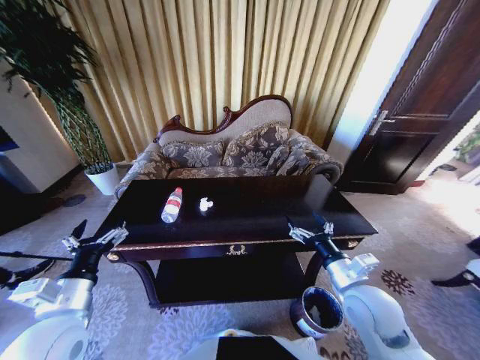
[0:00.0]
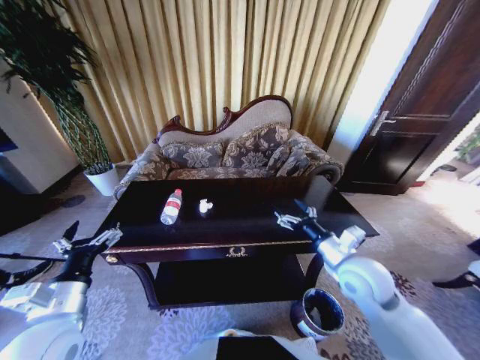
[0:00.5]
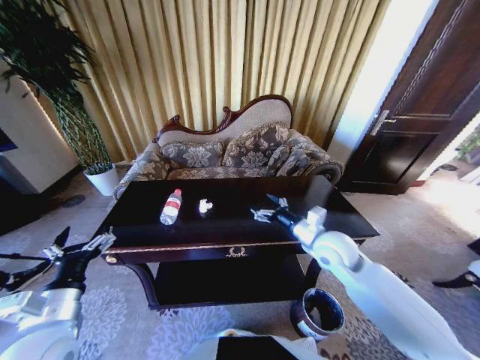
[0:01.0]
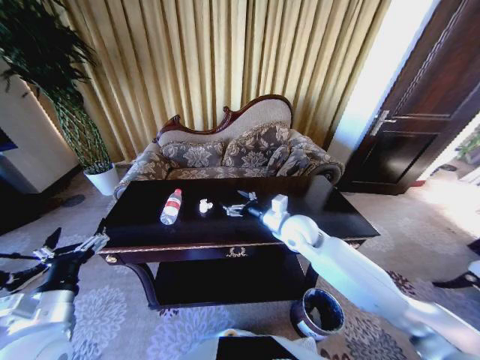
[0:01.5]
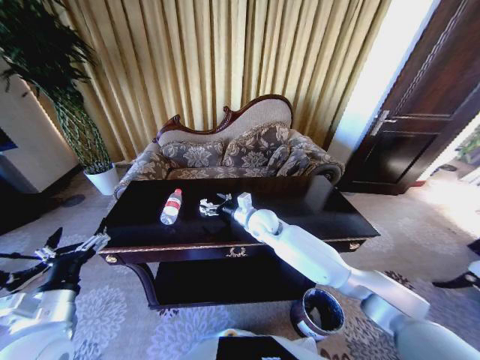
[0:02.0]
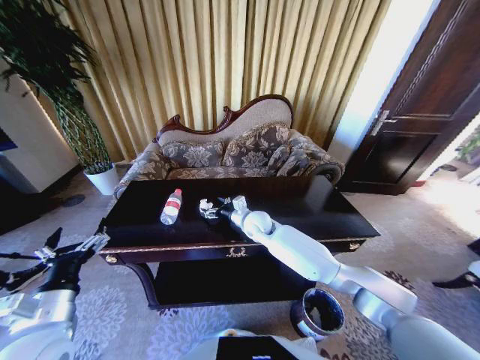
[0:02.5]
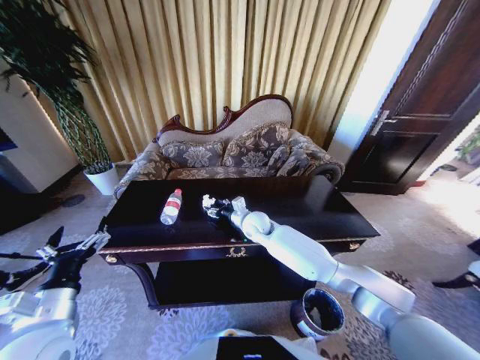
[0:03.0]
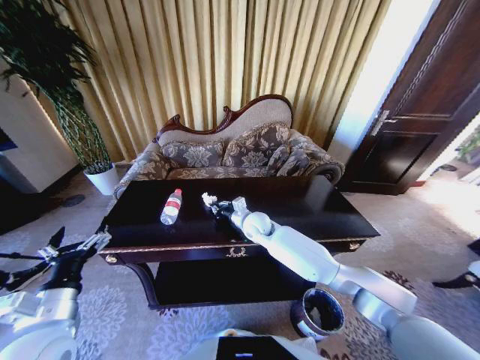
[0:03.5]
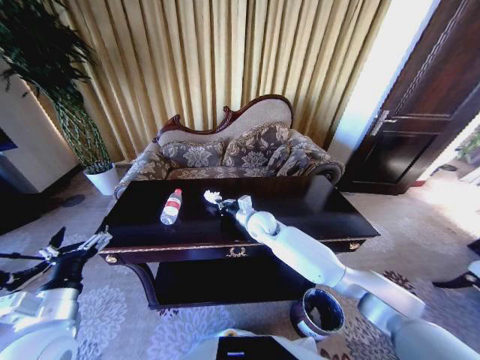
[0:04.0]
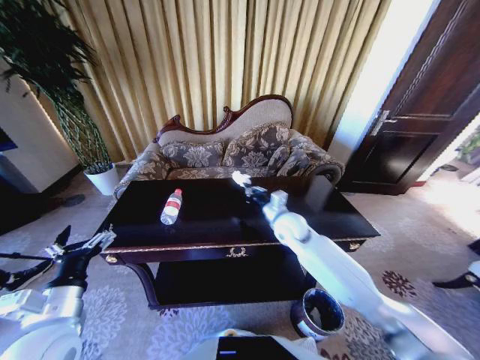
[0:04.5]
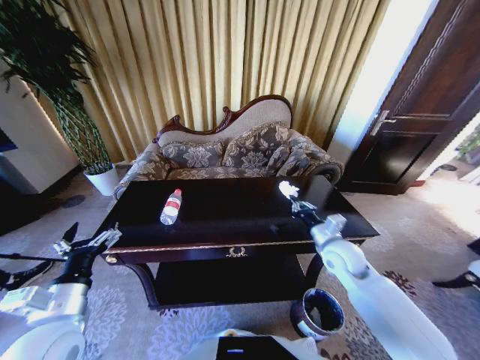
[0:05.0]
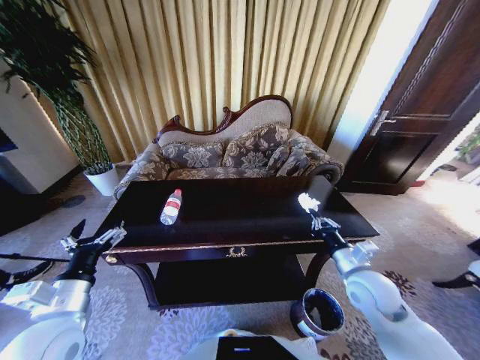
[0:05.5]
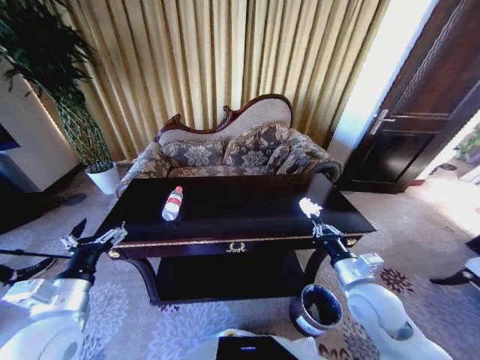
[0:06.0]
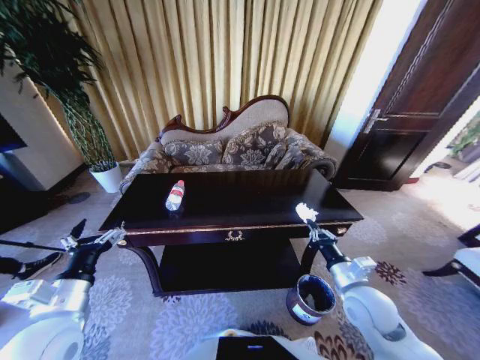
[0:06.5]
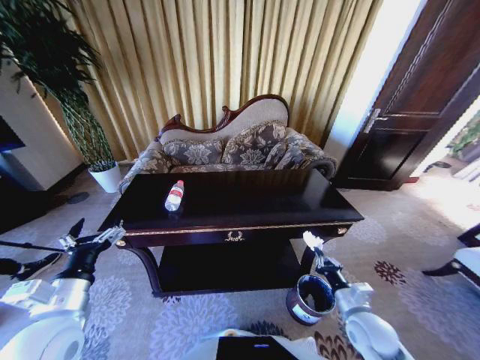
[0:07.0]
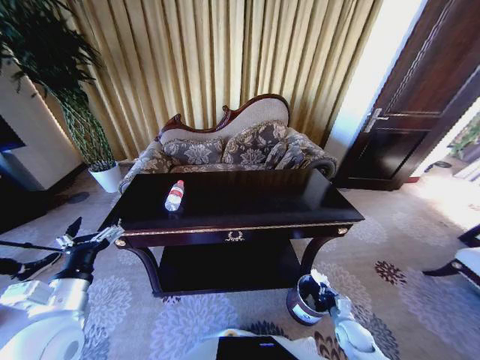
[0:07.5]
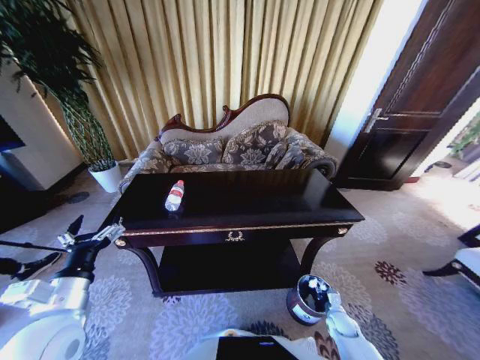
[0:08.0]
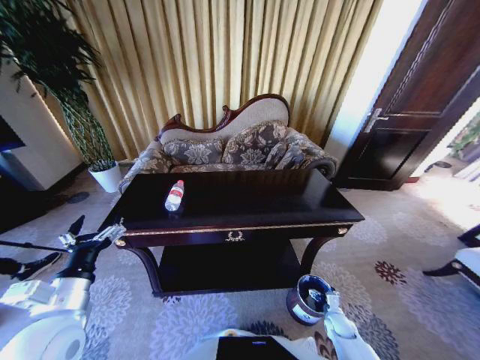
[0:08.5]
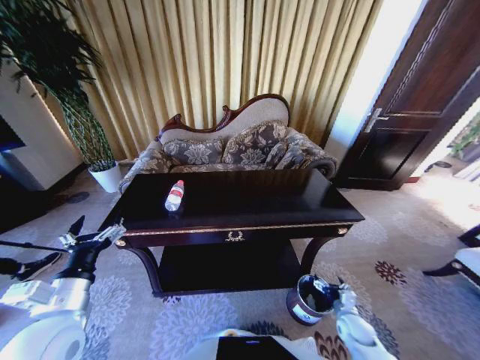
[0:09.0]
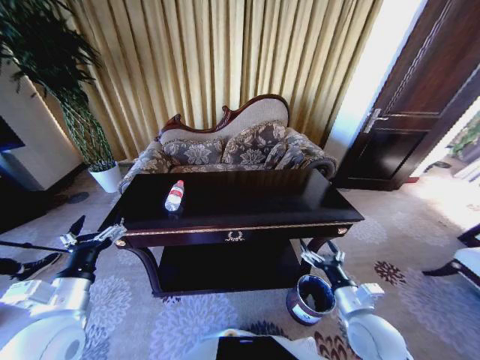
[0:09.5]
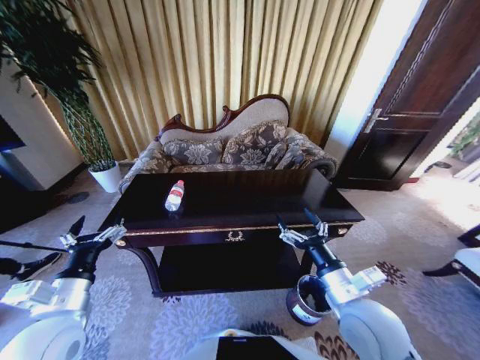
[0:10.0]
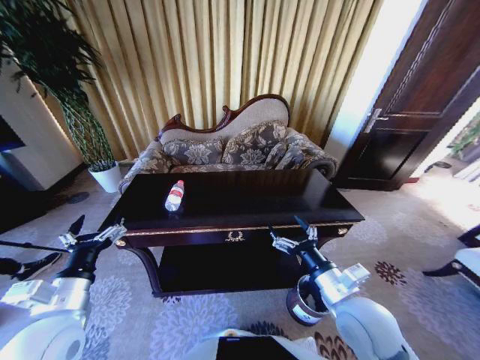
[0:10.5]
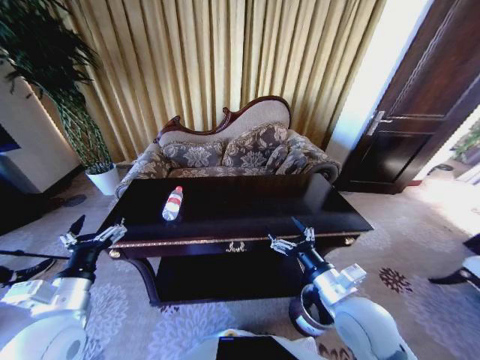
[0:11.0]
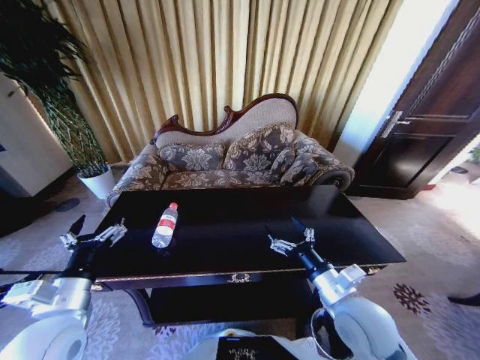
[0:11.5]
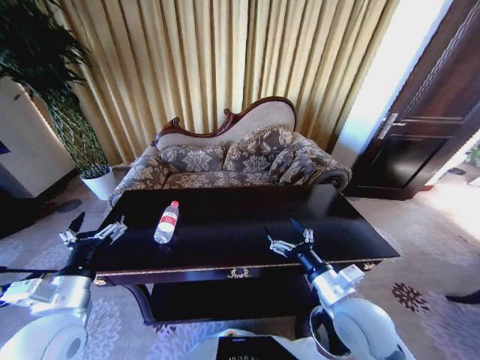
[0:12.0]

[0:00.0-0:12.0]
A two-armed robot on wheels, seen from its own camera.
Task of the whole recording: Move to the front of the table and place the trash on the table into the trash bin.
0.0 to 2.0 s: The right gripper moves forward and to the left, approximately 30 cm.
2.0 to 4.0 s: The right gripper closes.
4.0 to 6.0 s: The right gripper moves backward and to the right, approximately 30 cm.
6.0 to 8.0 s: The right gripper heads downward, covering about 30 cm.
8.0 to 10.0 s: The right gripper heads upward and to the left, covering approximately 40 cm, and opens up.

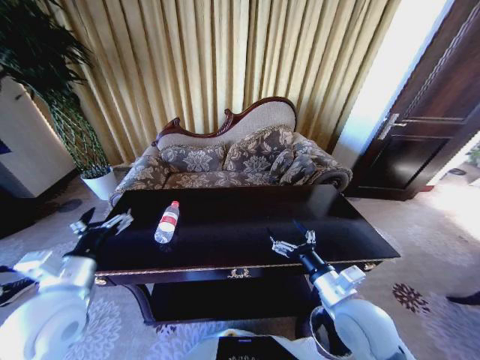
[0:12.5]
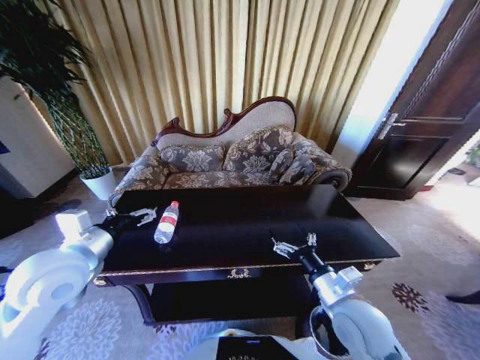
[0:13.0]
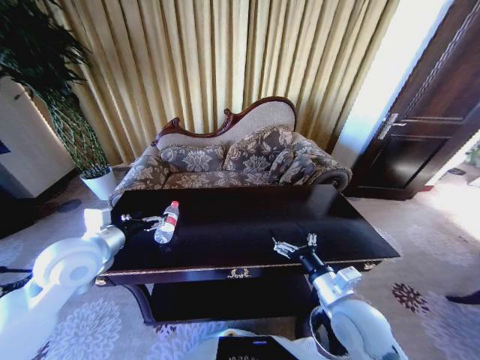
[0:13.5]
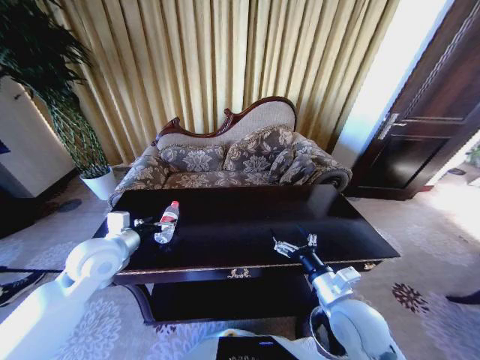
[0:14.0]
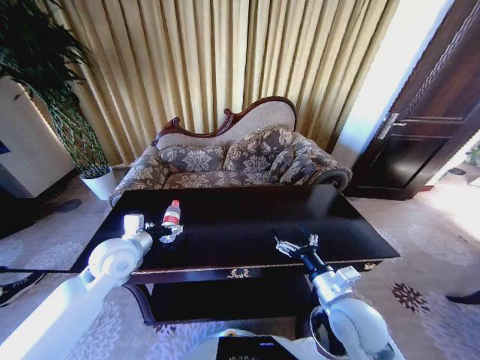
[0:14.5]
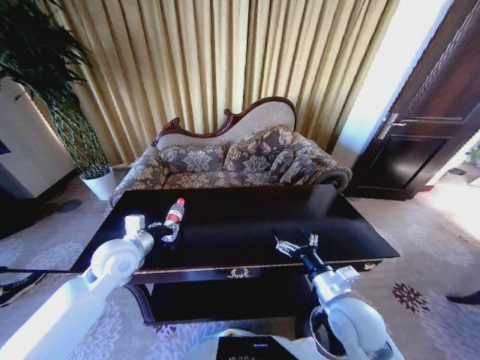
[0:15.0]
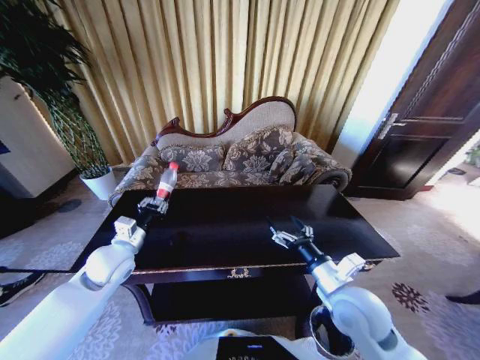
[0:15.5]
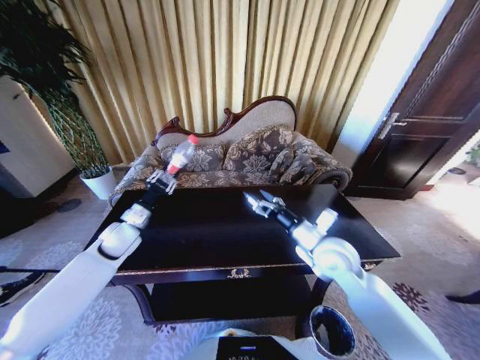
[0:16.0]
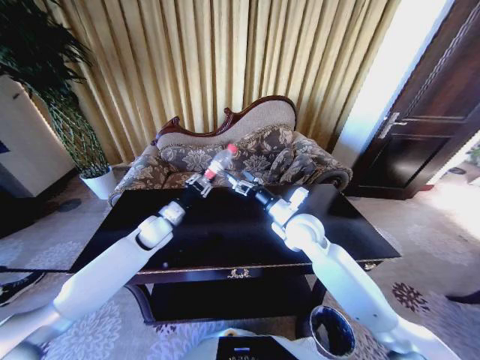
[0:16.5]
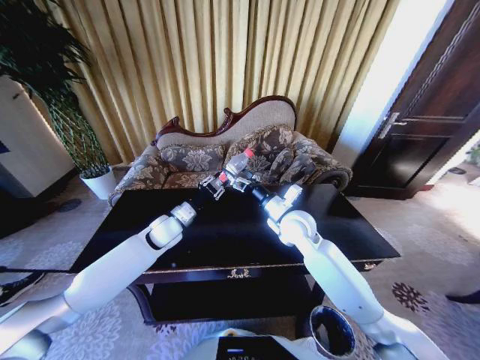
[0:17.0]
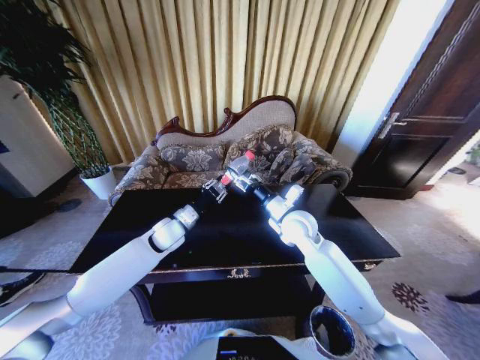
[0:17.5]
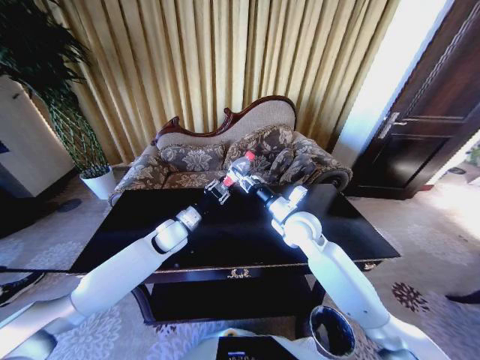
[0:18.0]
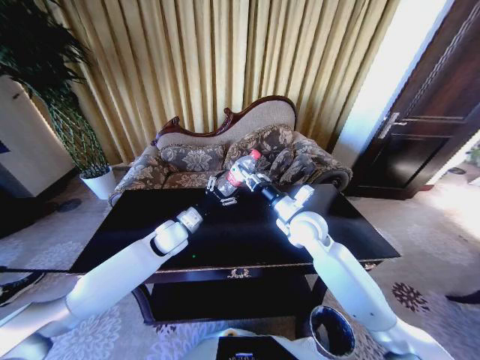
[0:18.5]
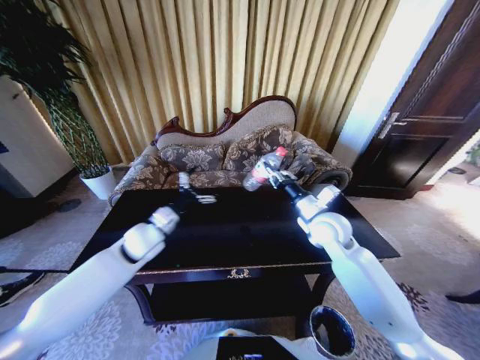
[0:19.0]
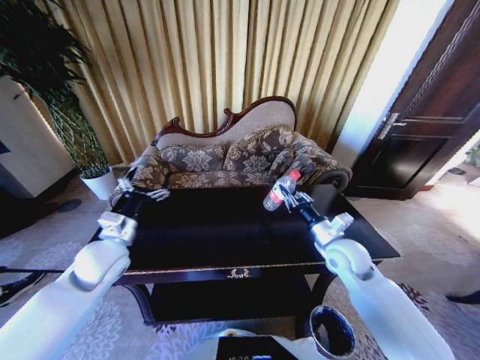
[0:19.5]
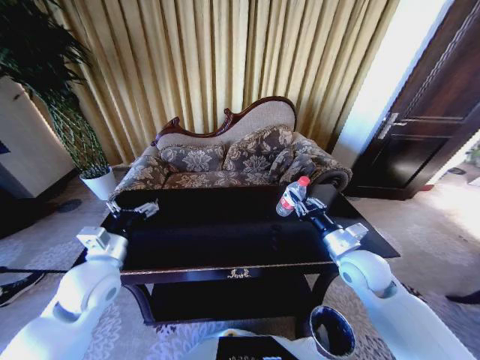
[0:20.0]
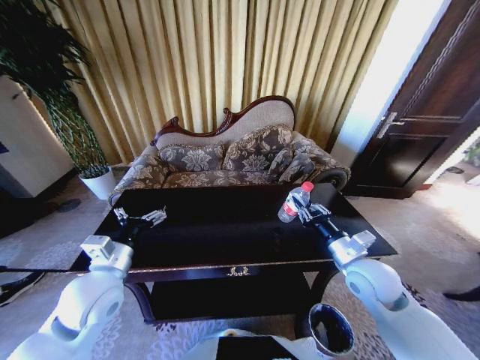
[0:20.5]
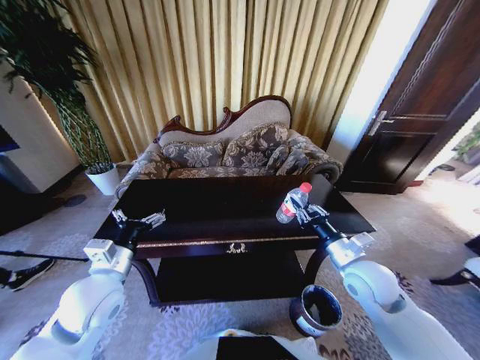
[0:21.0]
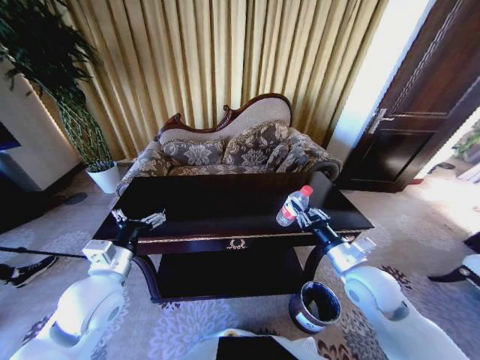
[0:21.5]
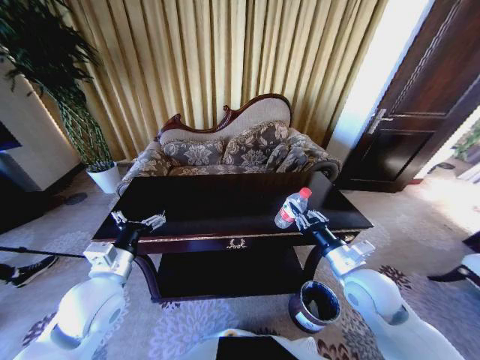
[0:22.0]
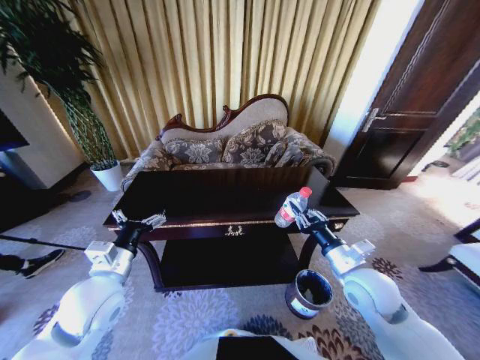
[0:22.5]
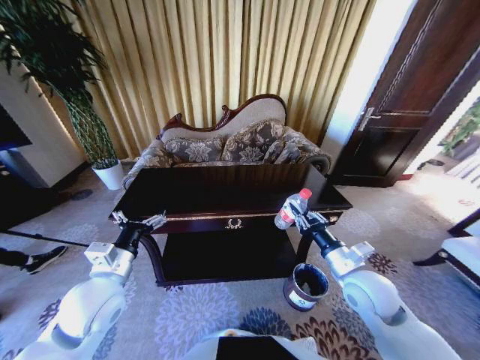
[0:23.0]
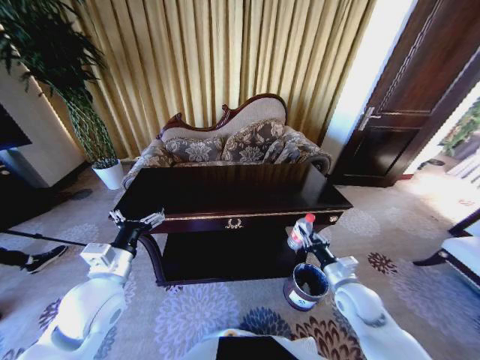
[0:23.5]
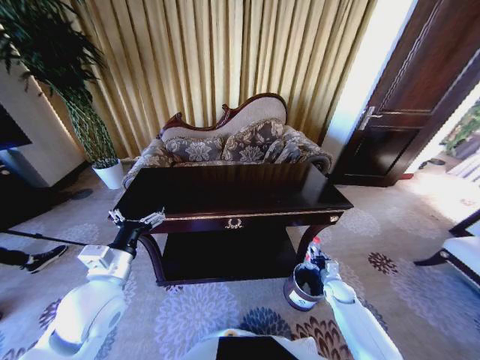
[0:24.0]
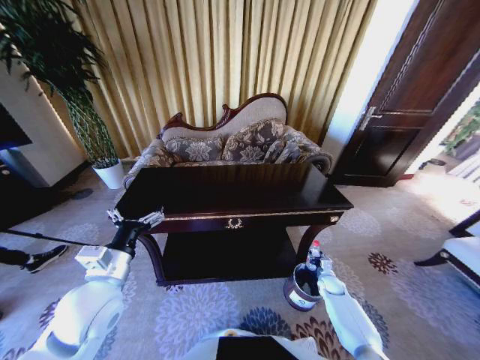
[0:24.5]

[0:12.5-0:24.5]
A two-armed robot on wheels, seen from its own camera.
Task of the whole recording: Move to the front of the table and place the trash on the table into the trash bin.
12.5 to 14.5 s: The left gripper travels forward by approximately 15 cm.
14.5 to 16.5 s: The right gripper travels forward by approximately 20 cm. Meanwhile the left gripper shifts about 15 cm forward, downward and to the right, and closes its fingers.
16.5 to 18.5 s: The left gripper ends up approximately 5 cm from where it was, and opens up. The right gripper closes.
18.5 to 20.5 s: The left gripper is displaced backward and to the left by approximately 20 cm. The right gripper goes approximately 15 cm backward and to the right.
22.5 to 24.5 s: The right gripper moves downward, approximately 30 cm.

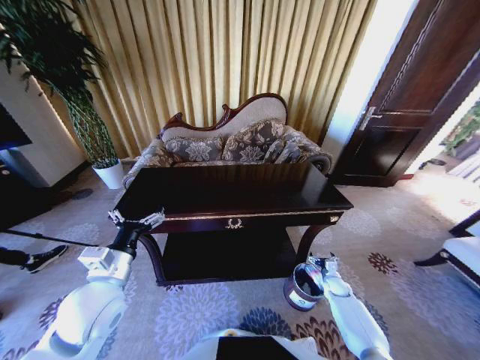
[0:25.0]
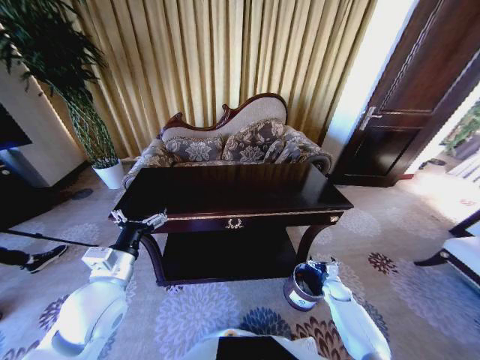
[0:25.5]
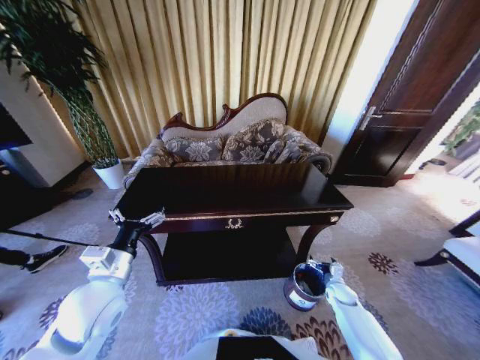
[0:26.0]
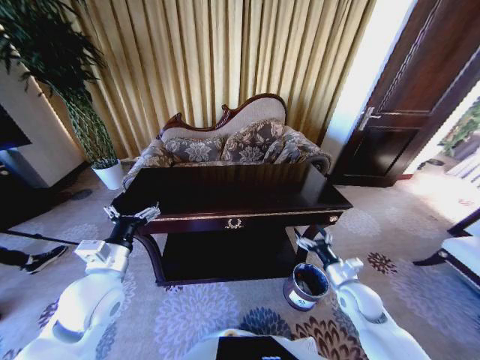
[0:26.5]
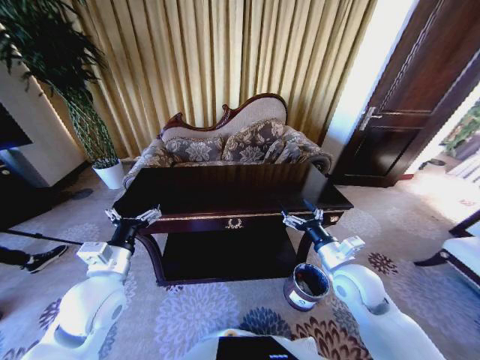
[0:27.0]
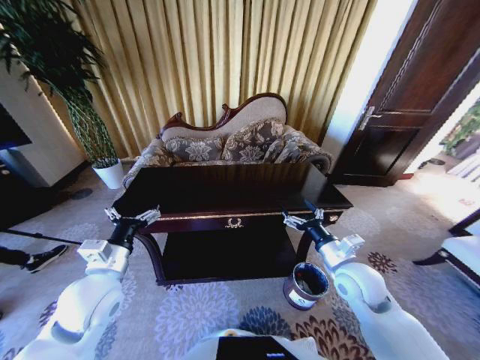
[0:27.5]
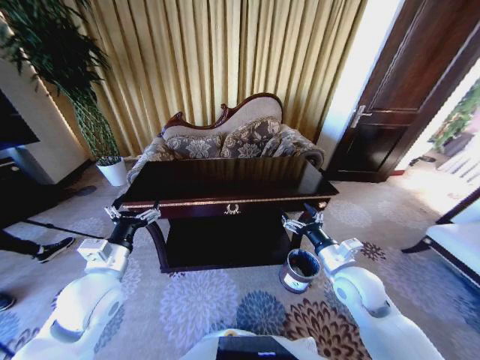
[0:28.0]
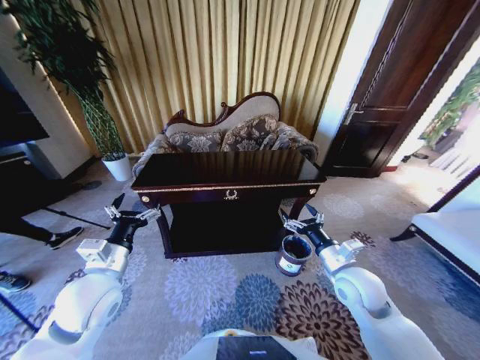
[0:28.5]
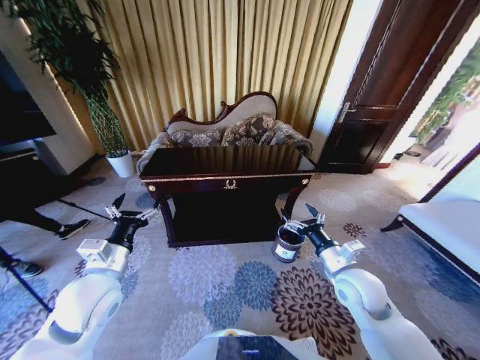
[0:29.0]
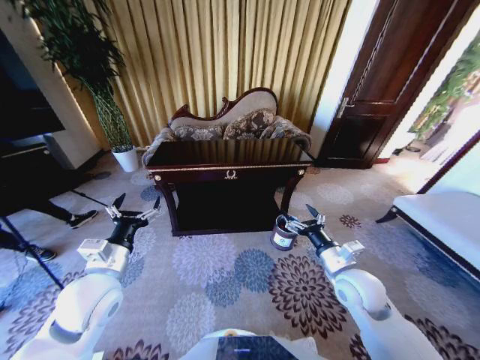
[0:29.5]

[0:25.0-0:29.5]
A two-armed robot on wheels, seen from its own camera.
Task of the whole recording: Move to the front of the table and place the trash on the table into the trash bin.
25.0 to 27.0 s: The right gripper goes roughly 35 cm upward and to the left.
